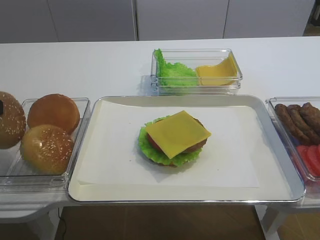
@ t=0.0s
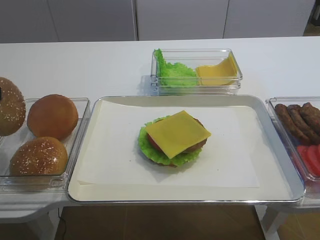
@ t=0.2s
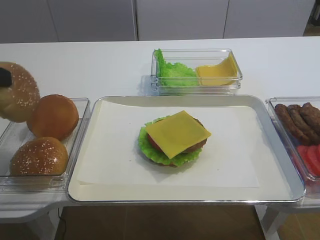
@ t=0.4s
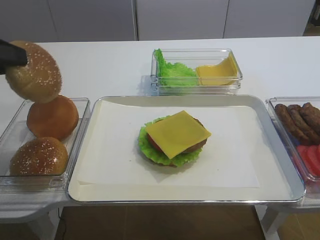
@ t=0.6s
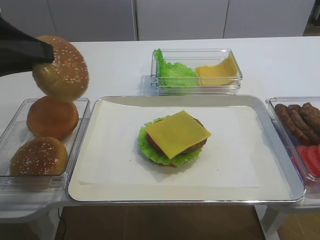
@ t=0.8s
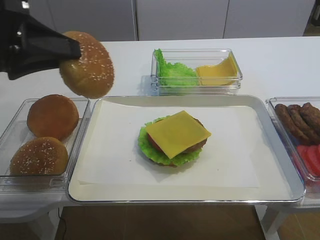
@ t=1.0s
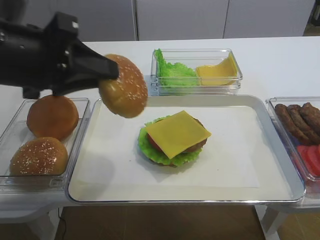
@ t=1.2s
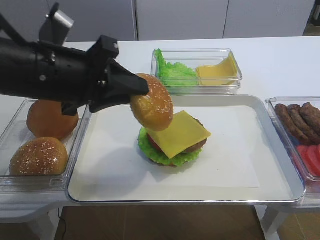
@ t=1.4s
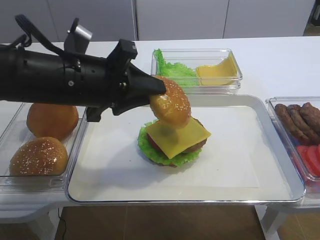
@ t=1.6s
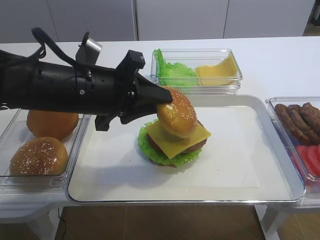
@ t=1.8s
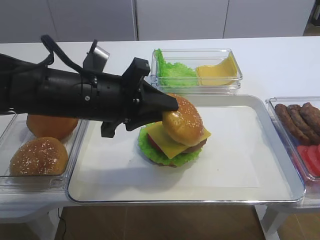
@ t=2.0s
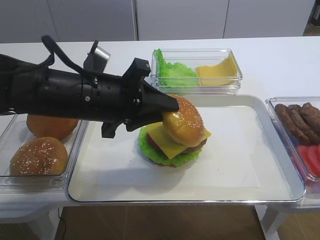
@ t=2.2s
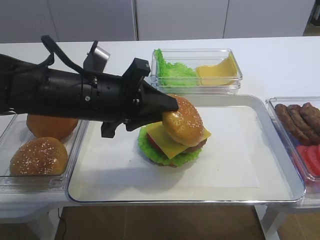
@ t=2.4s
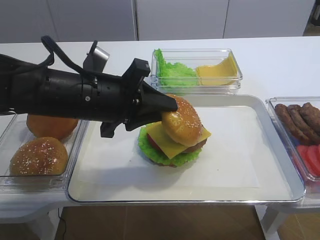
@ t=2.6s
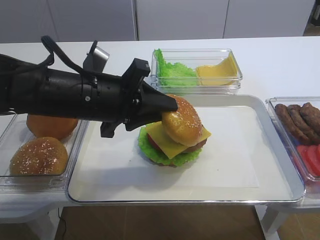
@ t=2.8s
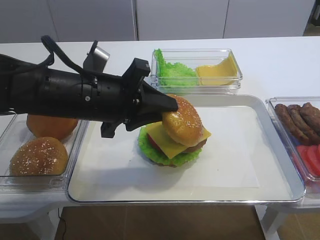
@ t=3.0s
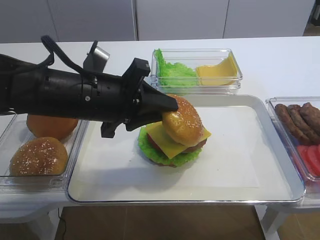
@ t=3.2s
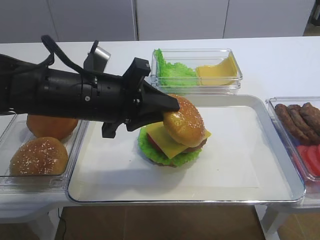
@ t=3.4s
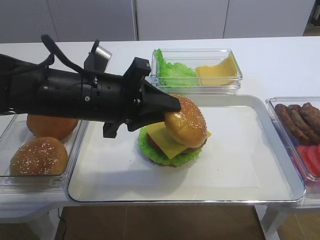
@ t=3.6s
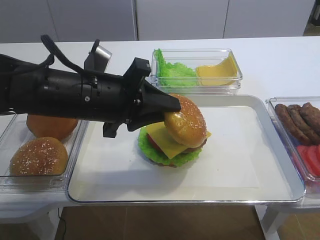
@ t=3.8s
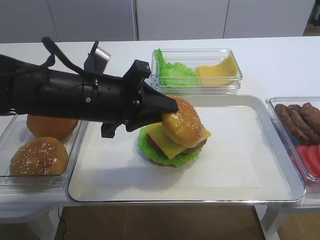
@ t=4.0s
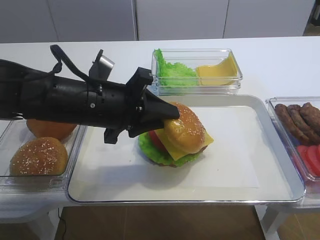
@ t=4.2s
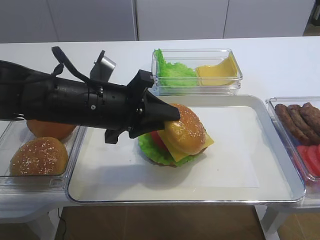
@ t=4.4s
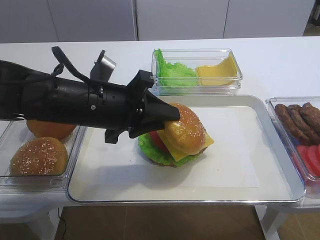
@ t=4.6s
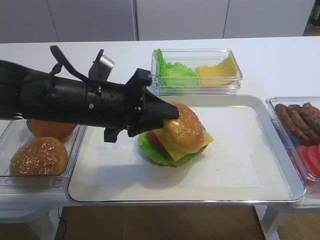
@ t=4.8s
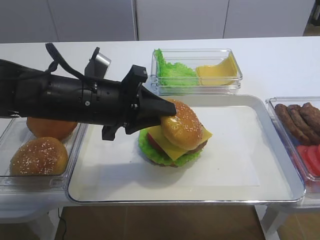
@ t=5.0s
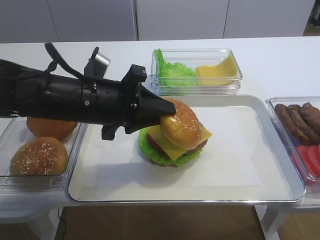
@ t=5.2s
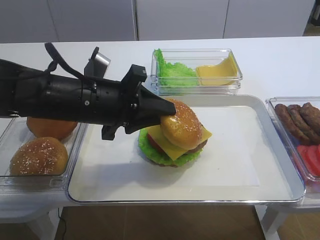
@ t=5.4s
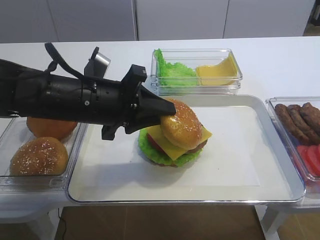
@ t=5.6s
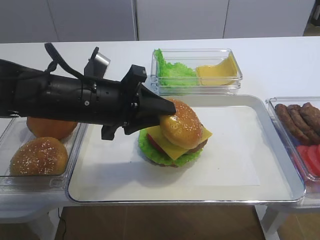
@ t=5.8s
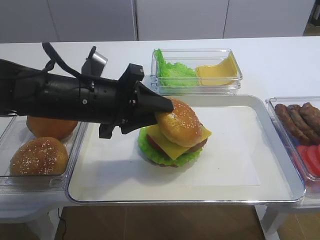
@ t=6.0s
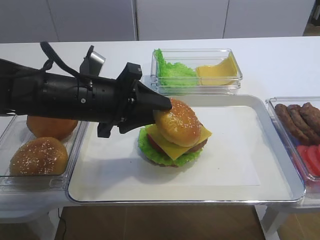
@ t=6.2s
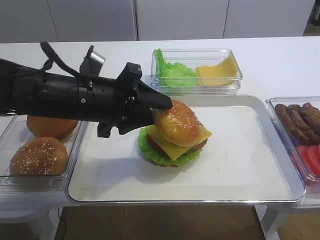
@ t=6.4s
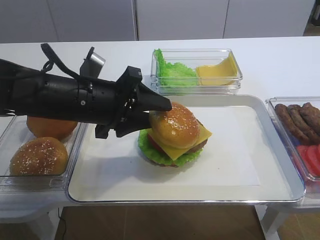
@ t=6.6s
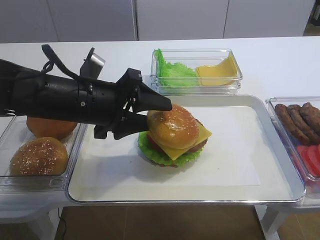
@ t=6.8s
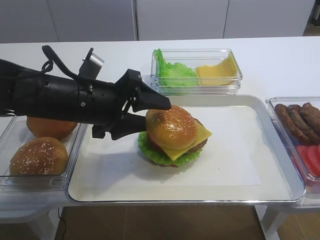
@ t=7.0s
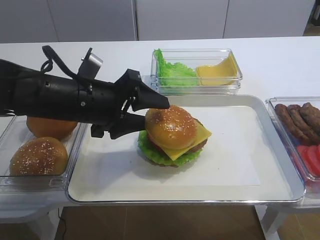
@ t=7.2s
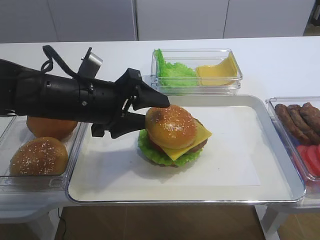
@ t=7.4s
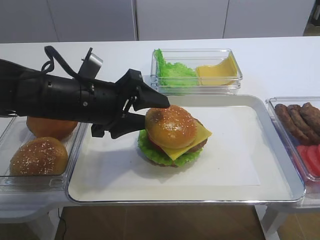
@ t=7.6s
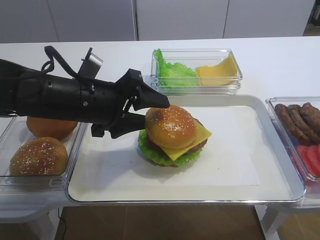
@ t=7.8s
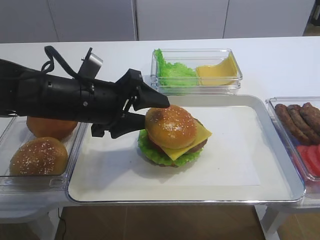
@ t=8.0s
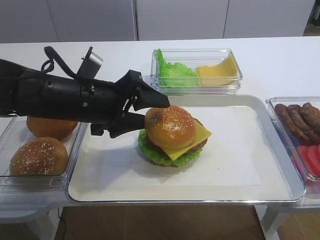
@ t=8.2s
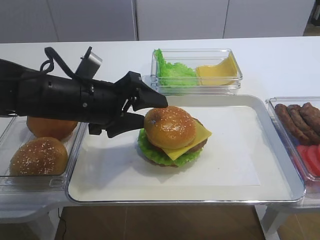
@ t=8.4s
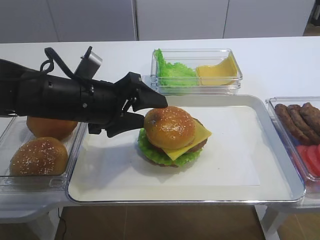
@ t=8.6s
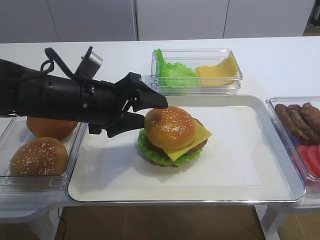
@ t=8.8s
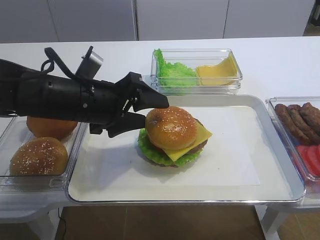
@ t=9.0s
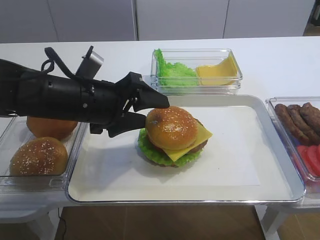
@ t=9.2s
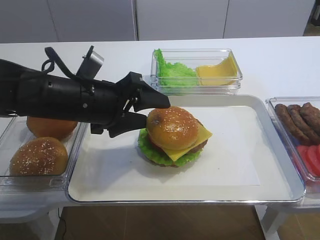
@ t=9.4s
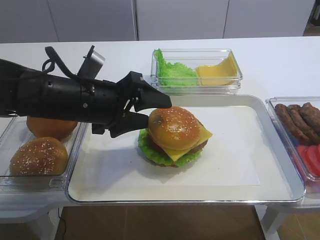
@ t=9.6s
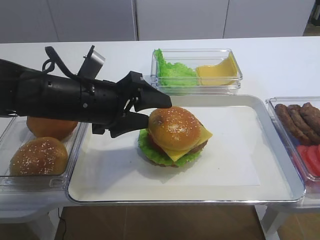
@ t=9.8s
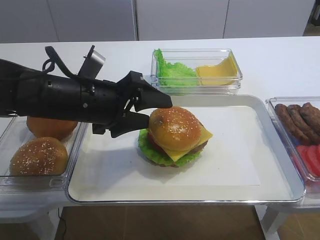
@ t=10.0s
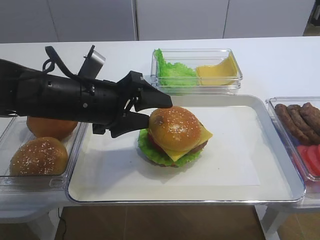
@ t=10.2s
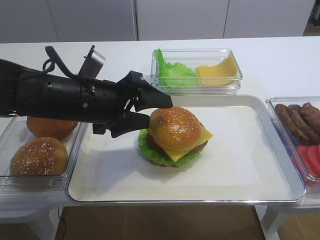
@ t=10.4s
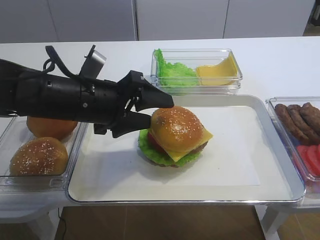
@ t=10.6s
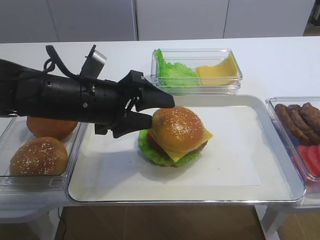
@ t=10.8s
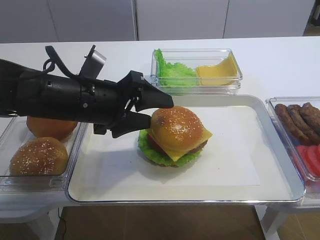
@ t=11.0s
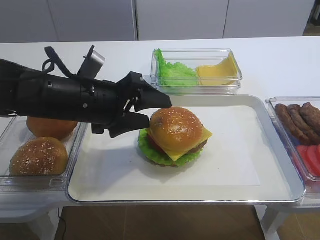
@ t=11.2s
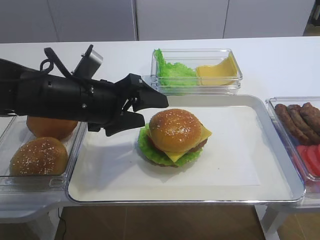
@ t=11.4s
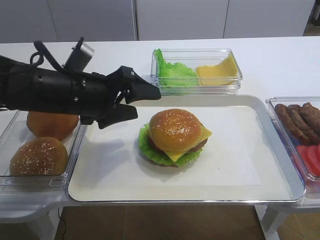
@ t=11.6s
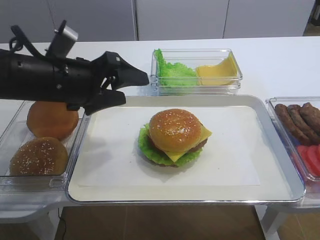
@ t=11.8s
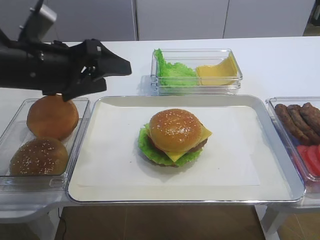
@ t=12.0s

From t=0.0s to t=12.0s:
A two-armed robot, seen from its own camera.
Step, from t=0.4s to t=11.6s: Place the hamburger lid on the cheese slice with the left gripper.
From t=0.0s to t=1.6s: The left gripper shifts approximately 20 cm to the right.
From t=1.6s to t=4.4s: The grippers move only a little.
From t=4.4s to t=6.0s: Both grippers stay about where they are.
From t=6.0s to t=7.6s: The left gripper opens up.
From t=7.6s to t=10.4s: Both grippers stay put.
From t=10.4s to t=12.0s: The left gripper goes about 10 cm to the left and upward.

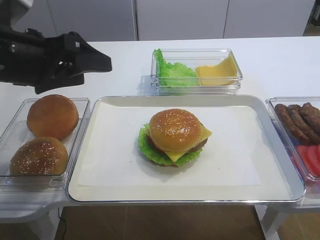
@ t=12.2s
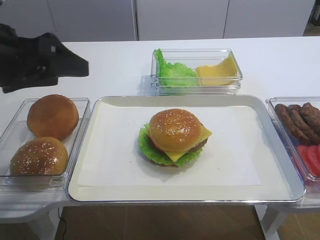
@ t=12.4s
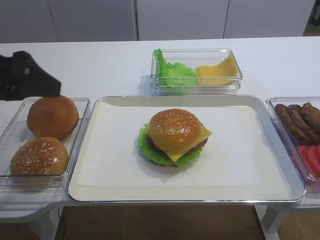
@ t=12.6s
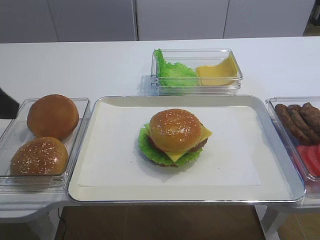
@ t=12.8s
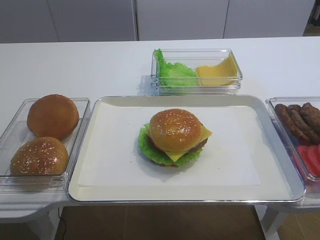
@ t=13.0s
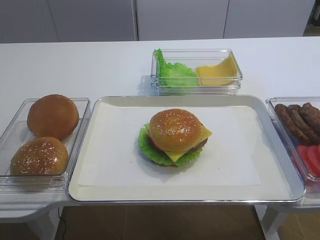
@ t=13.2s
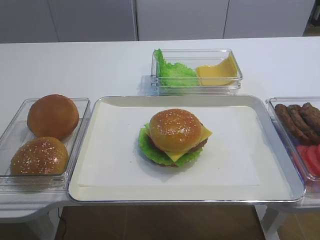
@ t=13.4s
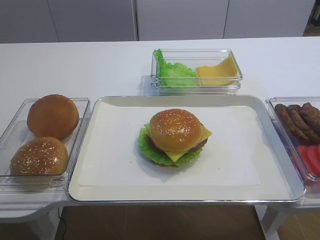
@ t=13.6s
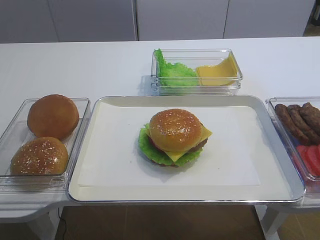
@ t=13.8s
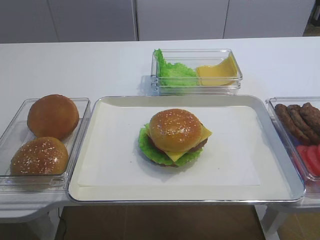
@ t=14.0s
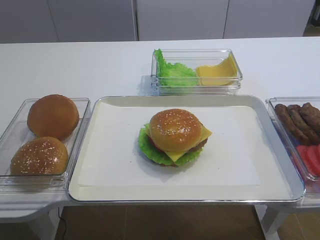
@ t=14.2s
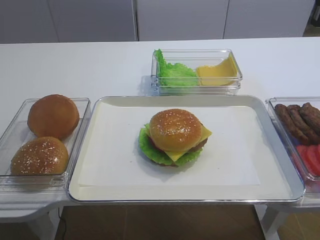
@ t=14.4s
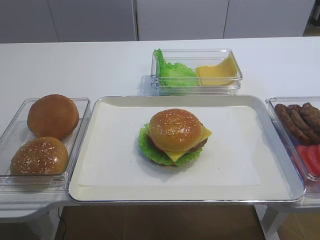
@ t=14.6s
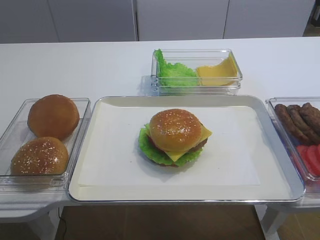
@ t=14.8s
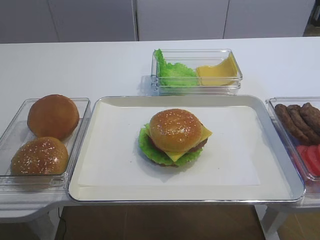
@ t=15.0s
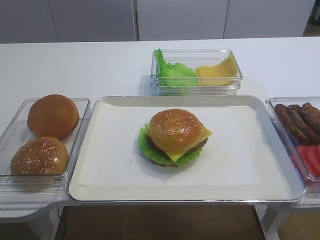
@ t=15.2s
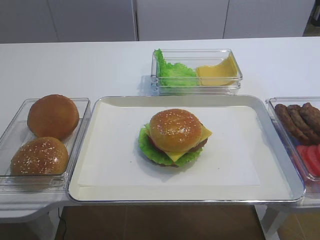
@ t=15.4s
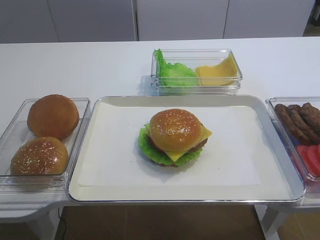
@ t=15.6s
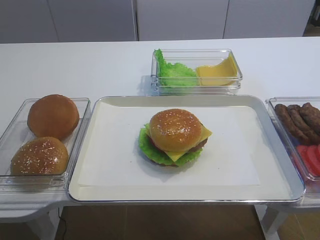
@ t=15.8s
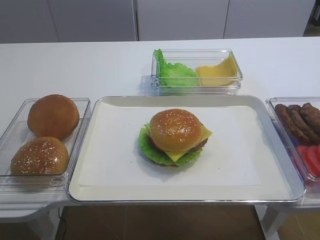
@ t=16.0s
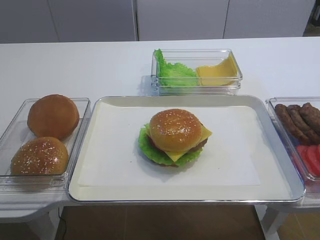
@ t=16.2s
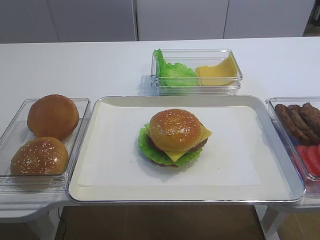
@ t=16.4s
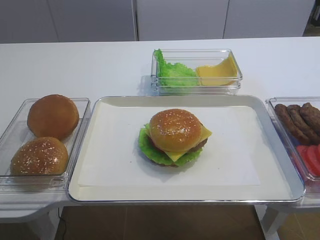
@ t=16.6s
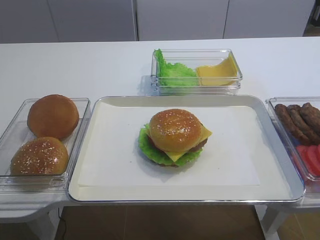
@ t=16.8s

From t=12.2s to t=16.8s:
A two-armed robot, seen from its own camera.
From t=12.2s to t=13.8s: The left gripper is displaced backward by approximately 25 cm.
From t=15.2s to t=16.8s: The two grippers keep their place.
